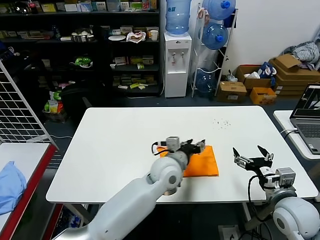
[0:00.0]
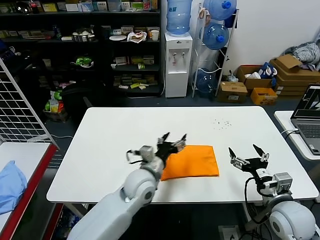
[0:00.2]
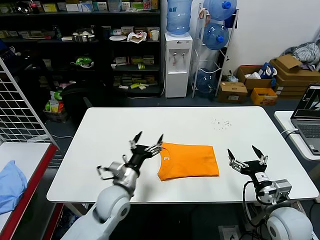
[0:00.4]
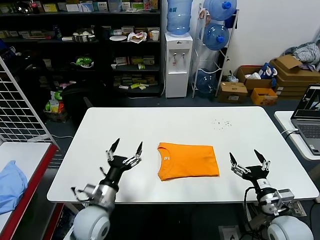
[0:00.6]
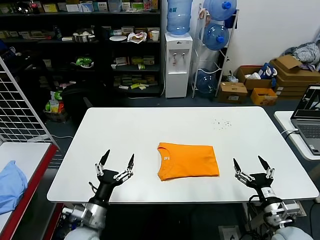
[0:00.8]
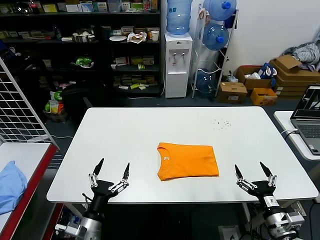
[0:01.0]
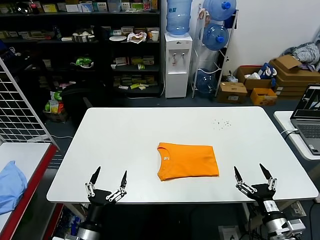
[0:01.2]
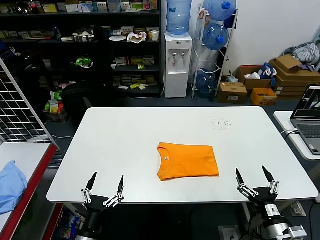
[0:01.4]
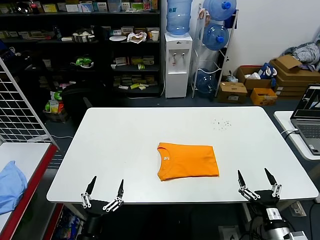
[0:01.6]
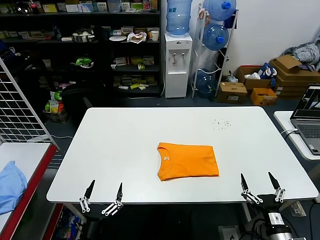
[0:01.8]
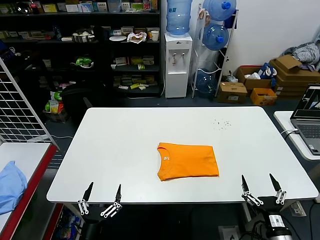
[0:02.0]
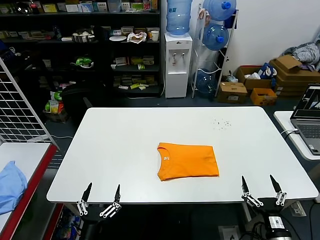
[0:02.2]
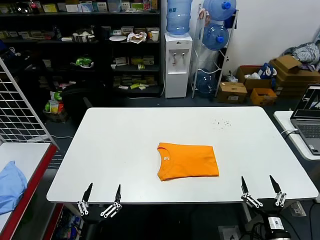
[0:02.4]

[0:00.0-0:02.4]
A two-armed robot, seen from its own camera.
Task of the whole recording: fold and organize the clothes.
0:00.0 to 0:01.2: The right gripper moves downward and backward, approximately 15 cm, while the left gripper moves to the left, backward and downward, approximately 35 cm, and opens its fingers.
0:01.2 to 0:02.4: The right gripper moves approximately 5 cm, while the left gripper is displaced backward by approximately 5 cm.
